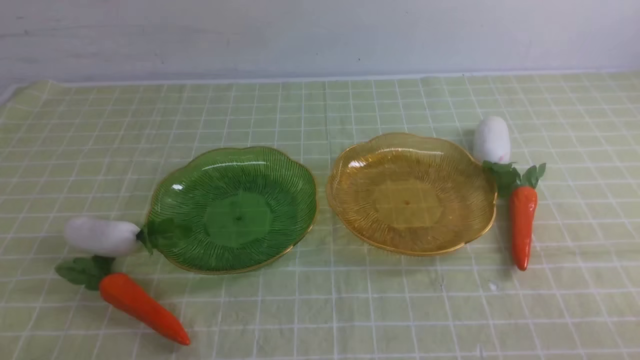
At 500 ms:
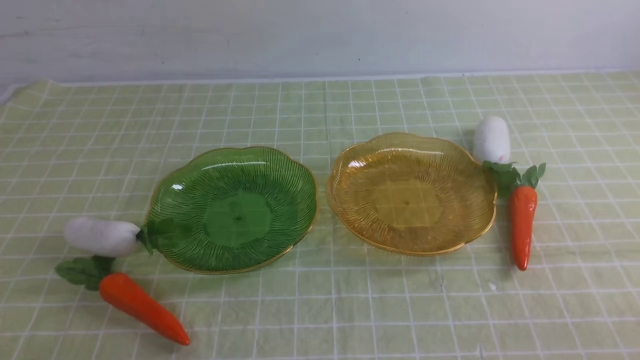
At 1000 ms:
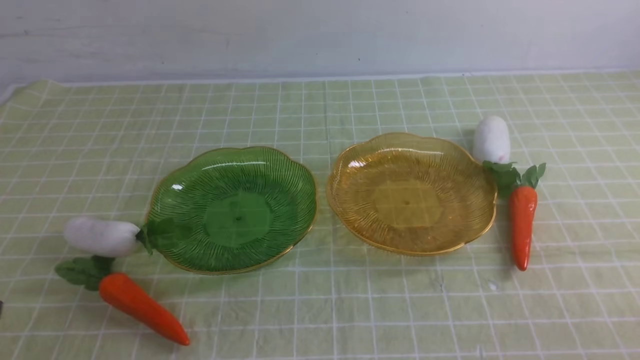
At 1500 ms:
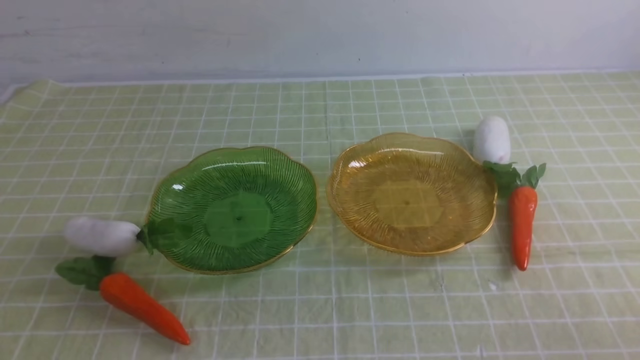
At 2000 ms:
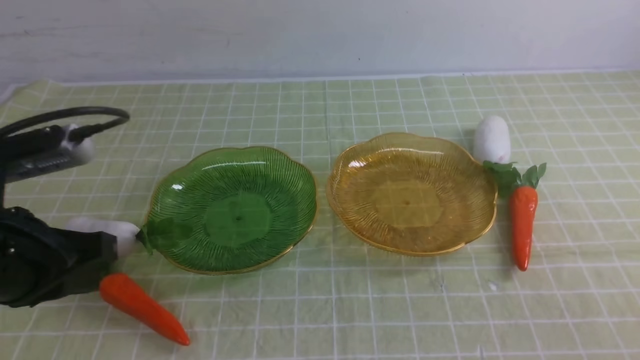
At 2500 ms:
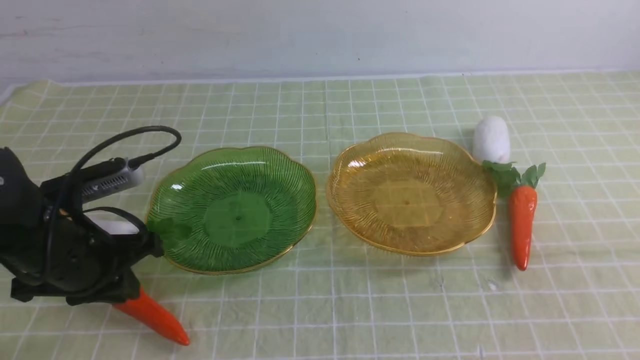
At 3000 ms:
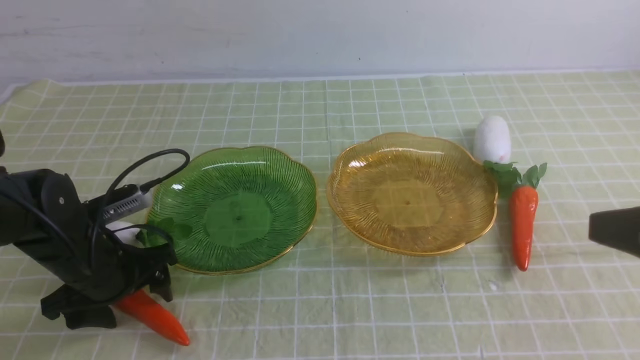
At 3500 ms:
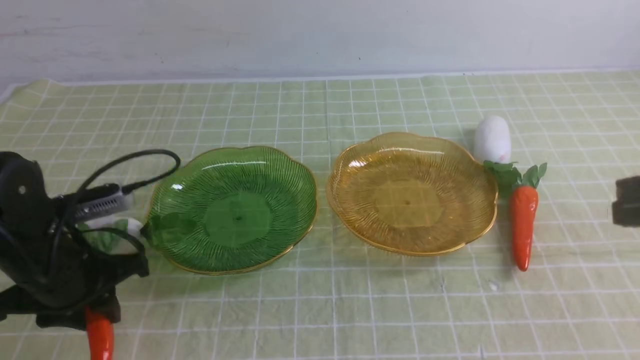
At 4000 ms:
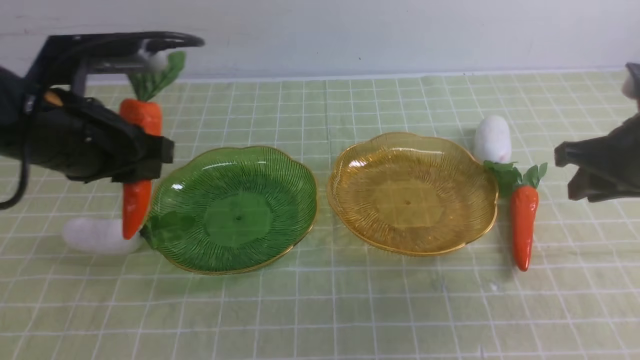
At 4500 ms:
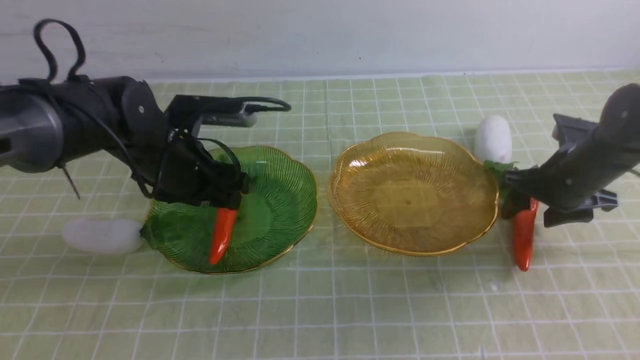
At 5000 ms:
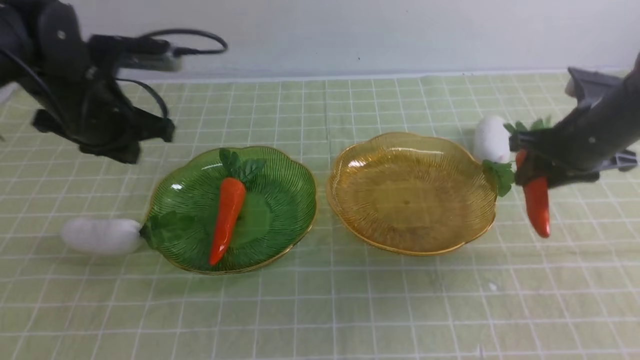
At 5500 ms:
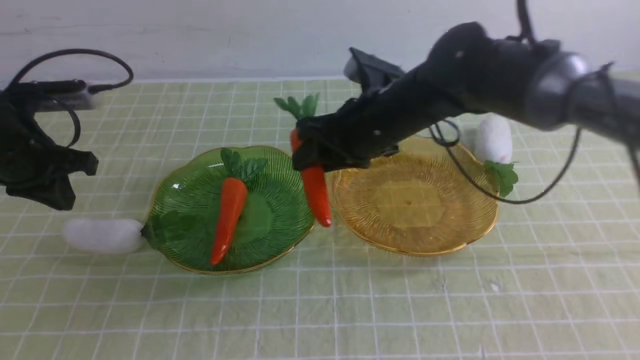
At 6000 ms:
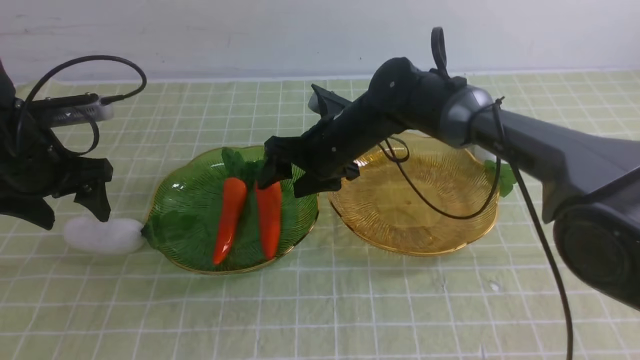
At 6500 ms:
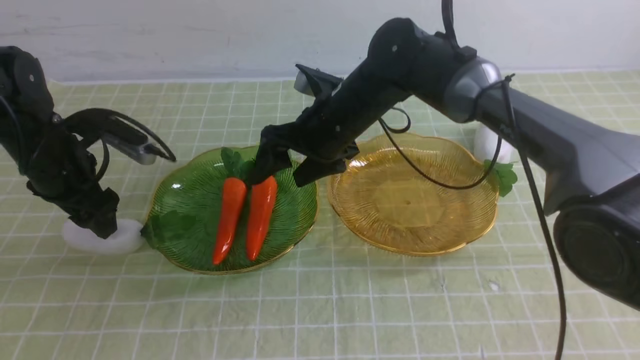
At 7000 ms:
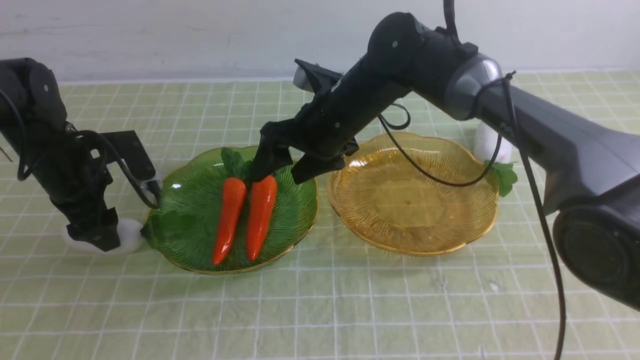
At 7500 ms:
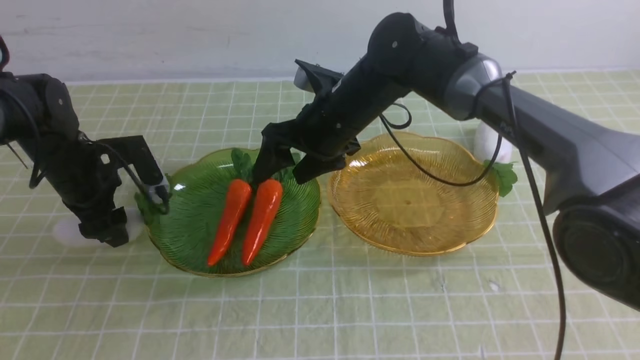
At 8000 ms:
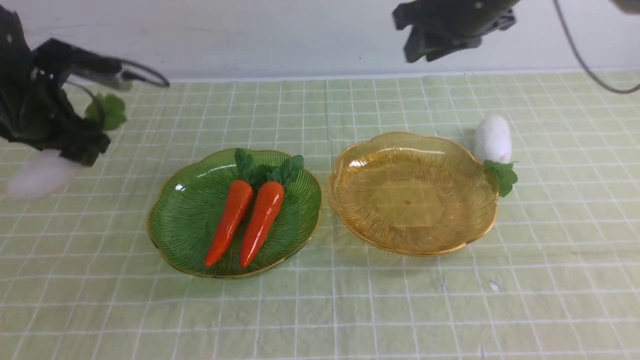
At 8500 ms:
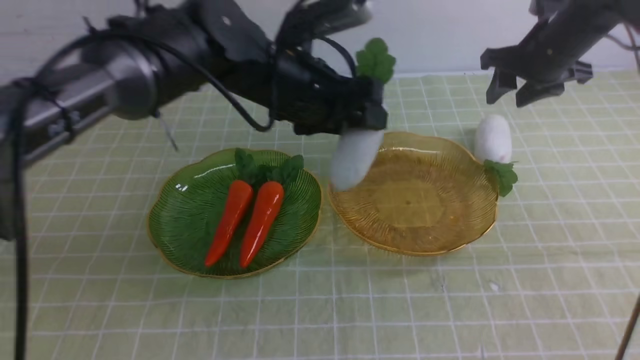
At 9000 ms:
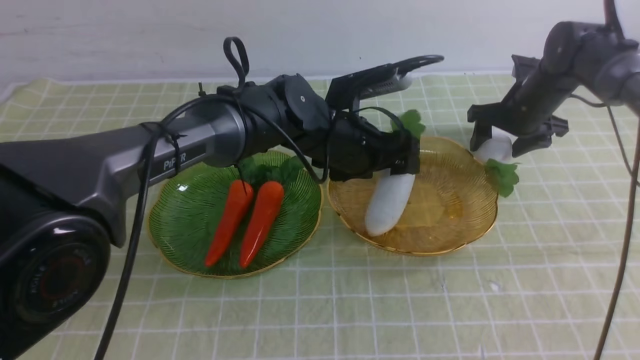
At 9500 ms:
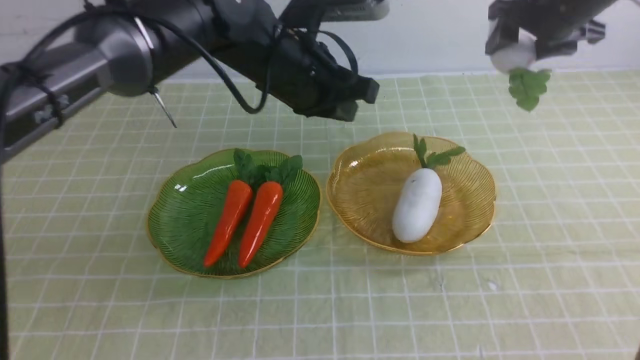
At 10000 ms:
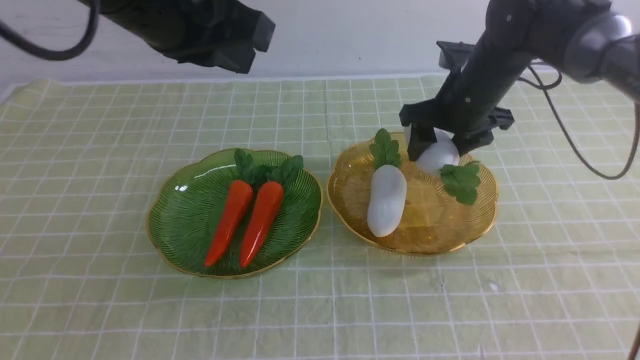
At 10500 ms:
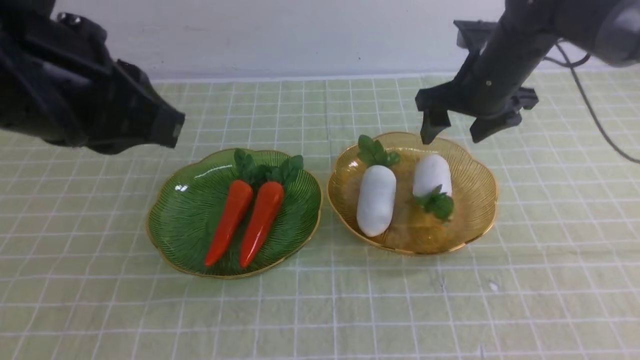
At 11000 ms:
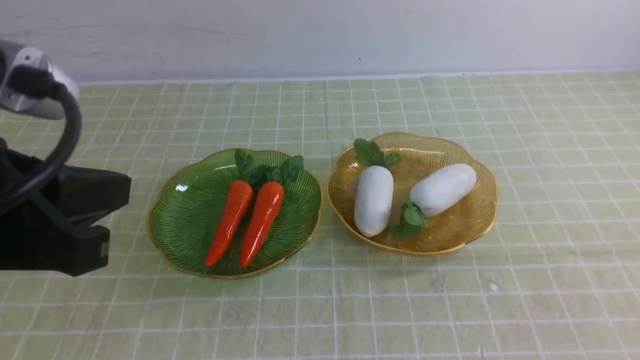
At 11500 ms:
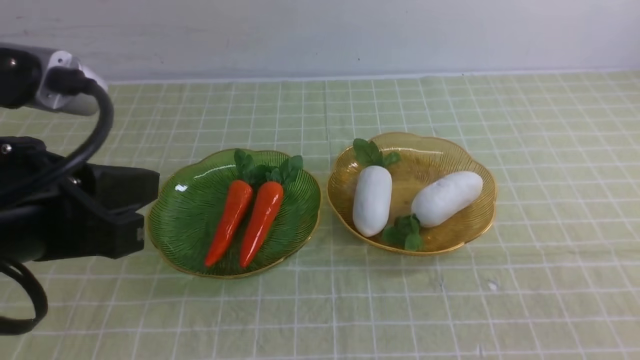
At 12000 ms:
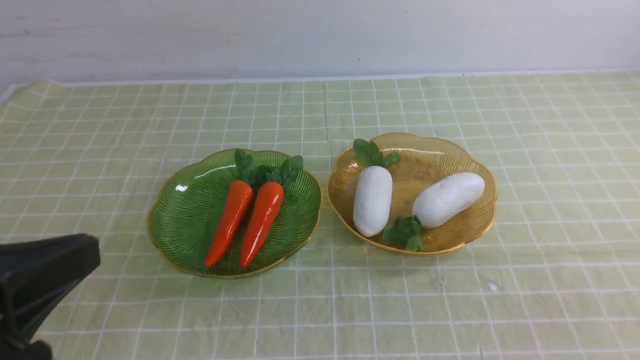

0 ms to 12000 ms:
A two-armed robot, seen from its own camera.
Step, 0 ms to 4500 ms: use the left arm to grab a carrot and put it into the left plate.
Step, 5000 ms to 6500 ms: use the right arm to grab a carrot and put it into the left plate.
Step, 7000 ms to 9500 ms: use the left arm to grab a radish and put it into the right plate.
Step, 10000 ms to 11000 ms: use the right arm to grab a radish and put it into the right plate.
0 ms to 2000 ms: The left gripper shifts about 20 cm forward and upward.
2000 ms to 4000 ms: The left gripper moves forward, approximately 10 cm, goes downward and returns, roughly 15 cm each way, and opens. Meanwhile the right gripper goes about 25 cm forward.
4000 ms to 6000 ms: The right gripper heads to the left, covering roughly 30 cm, and opens up; the left gripper shifts roughly 15 cm to the left, forward and downward, and opens.
6000 ms to 8000 ms: The right gripper shifts some 20 cm to the right and upward, and closes its fingers. Meanwhile the left gripper heads to the right, covering about 5 cm.
8000 ms to 10000 ms: The left gripper is displaced upward, to the right and backward by some 25 cm, and closes up. The right gripper swings up and down, some 15 cm each way, with 2 reversals, and opens up.
10000 ms to 12000 ms: The left gripper moves backward, downward and to the left, roughly 25 cm. Meanwhile the right gripper is displaced backward by approximately 40 cm, and closes up.

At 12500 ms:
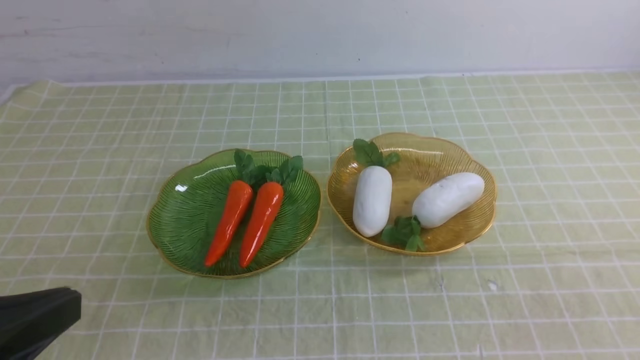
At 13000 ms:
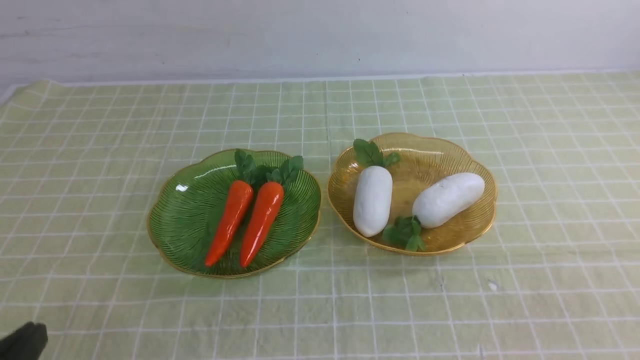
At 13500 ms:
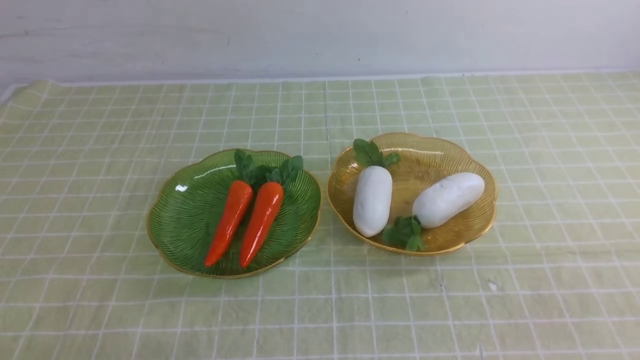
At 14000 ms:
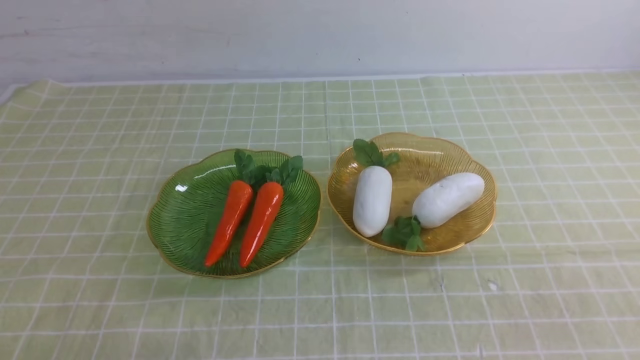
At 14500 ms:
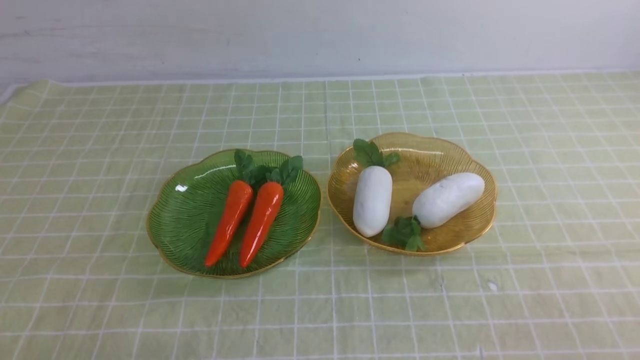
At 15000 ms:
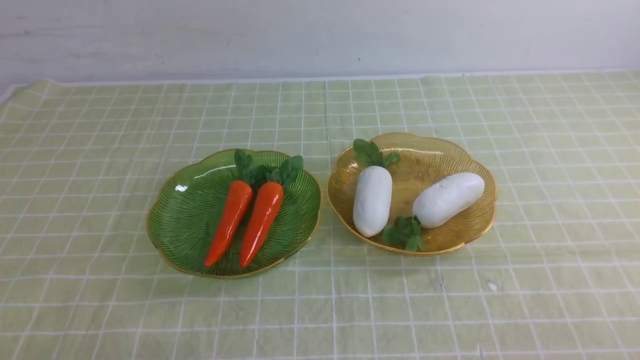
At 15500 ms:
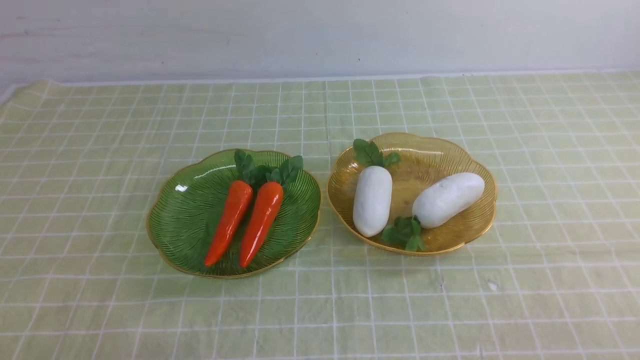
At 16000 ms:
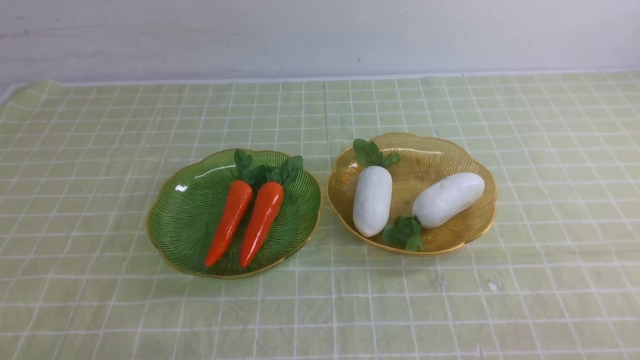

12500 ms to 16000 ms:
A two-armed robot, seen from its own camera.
12500 ms to 14500 ms: The left gripper goes some 15 cm downward.

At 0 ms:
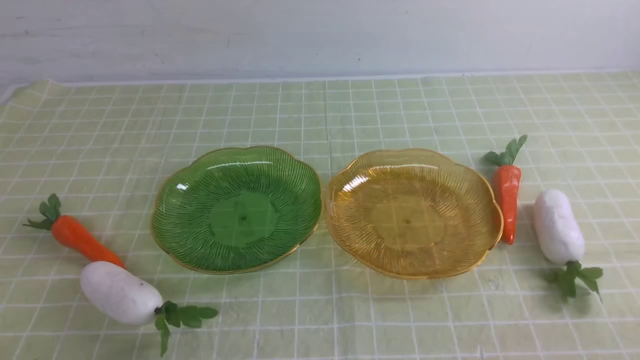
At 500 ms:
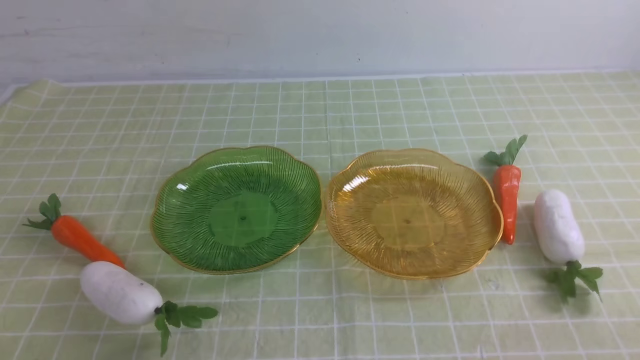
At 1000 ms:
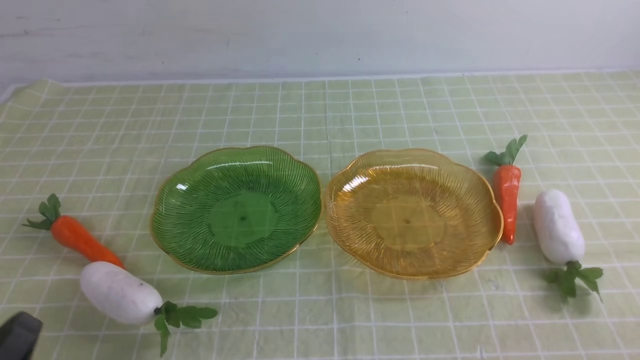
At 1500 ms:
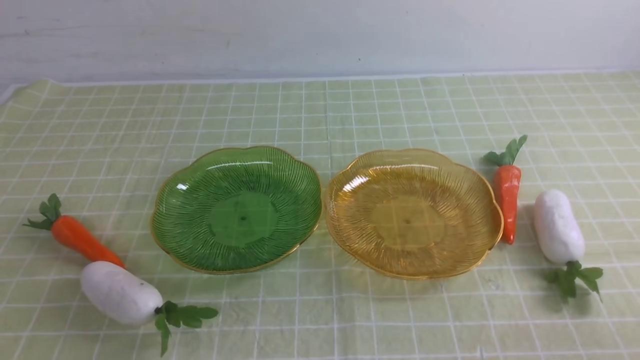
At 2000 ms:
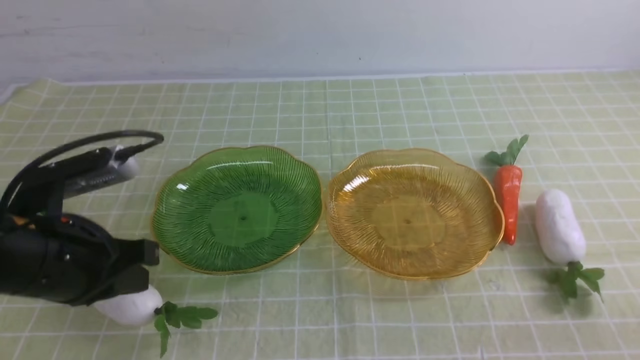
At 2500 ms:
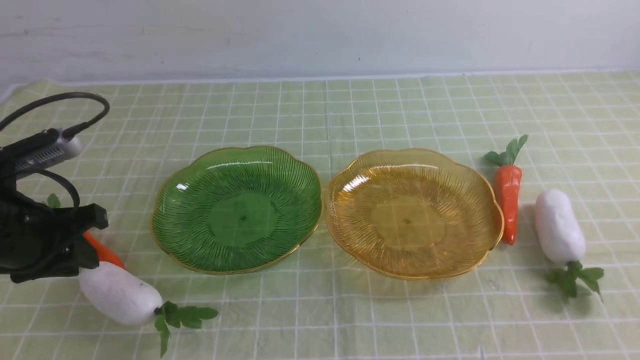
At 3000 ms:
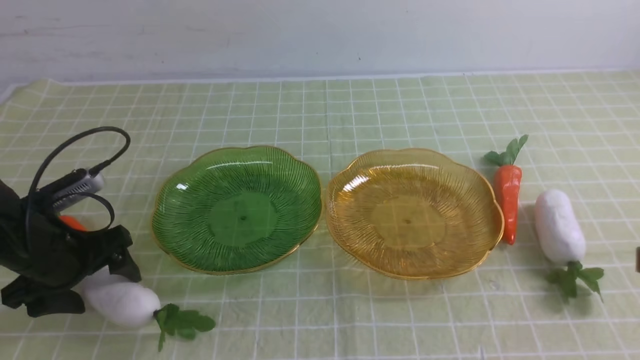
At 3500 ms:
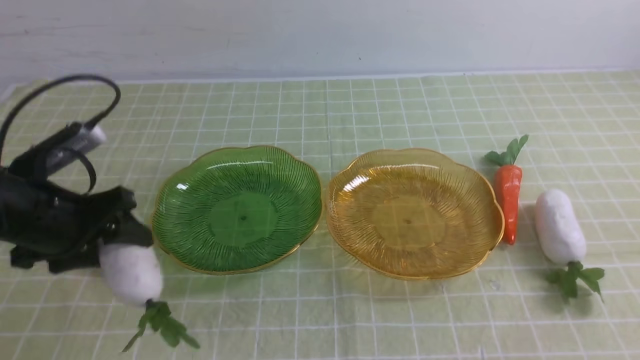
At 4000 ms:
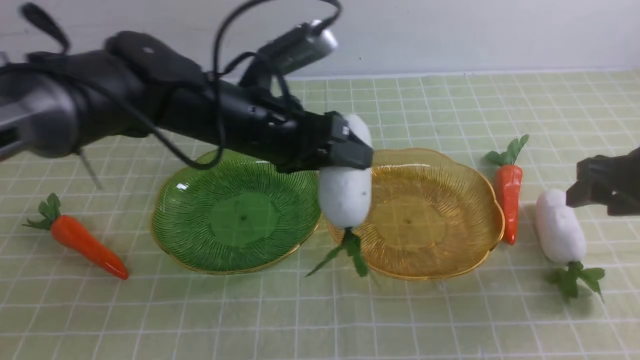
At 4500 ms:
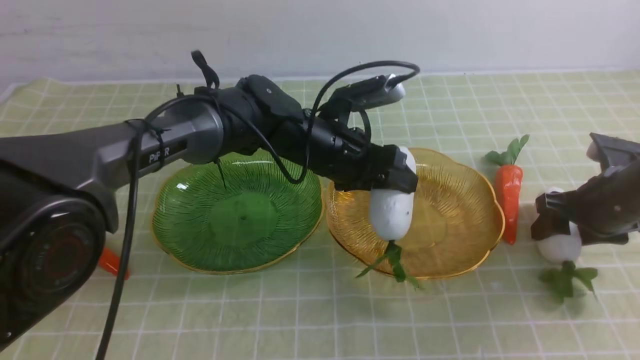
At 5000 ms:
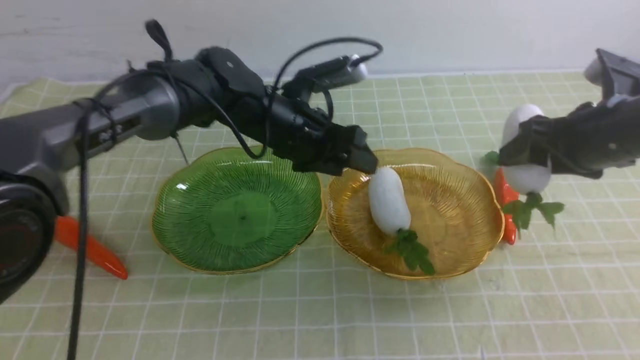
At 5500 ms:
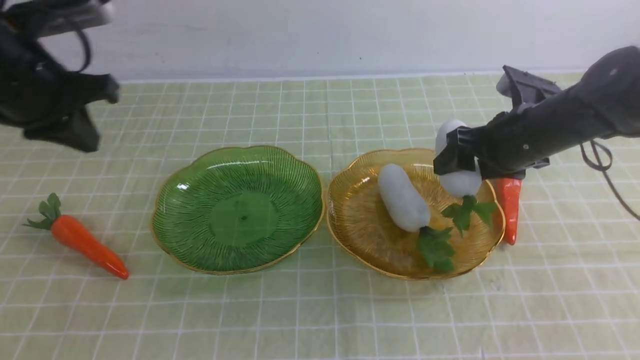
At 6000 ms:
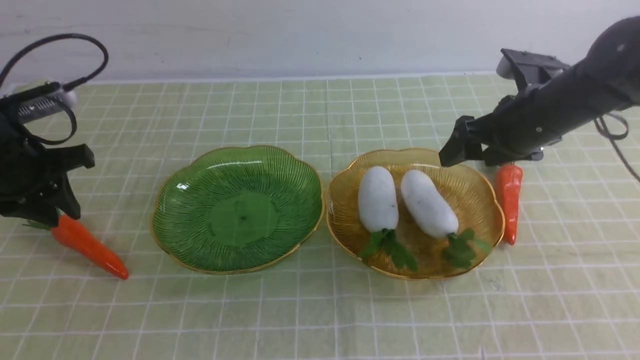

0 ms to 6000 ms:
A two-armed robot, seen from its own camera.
Step, 0 ms to 4500 ms: use the left arm to grab a radish and put it into the right plate.
Step, 5000 ms to 6000 ms: use the right arm to grab a radish and put it into the right plate.
0 ms to 2000 ms: The left gripper is displaced forward and upward by approximately 20 cm.
2000 ms to 4000 ms: The right gripper travels forward by about 25 cm, and opens up. The left gripper heads to the right and forward, covering some 20 cm, and opens.
4000 ms to 6000 ms: The right gripper is displaced to the left and forward by roughly 15 cm, while the left gripper goes approximately 25 cm to the left, and closes, then reopens.
